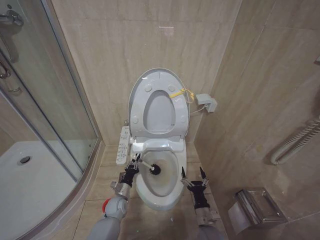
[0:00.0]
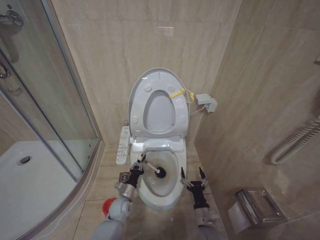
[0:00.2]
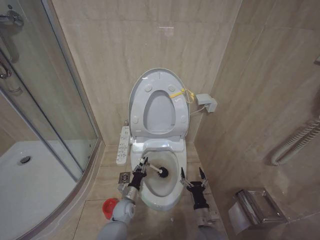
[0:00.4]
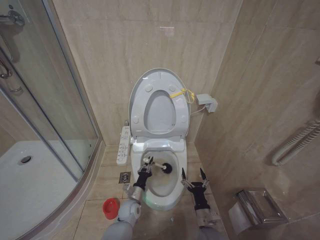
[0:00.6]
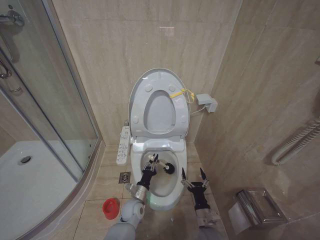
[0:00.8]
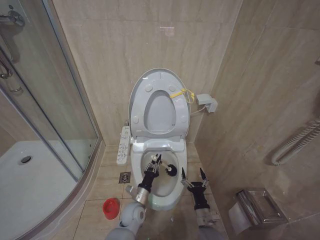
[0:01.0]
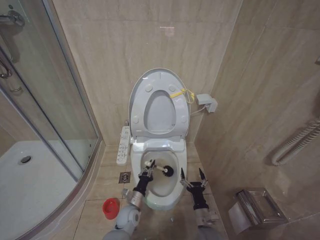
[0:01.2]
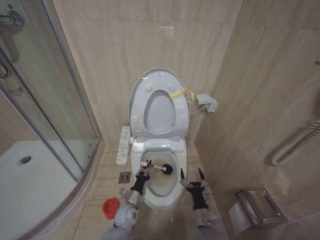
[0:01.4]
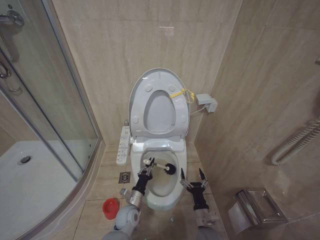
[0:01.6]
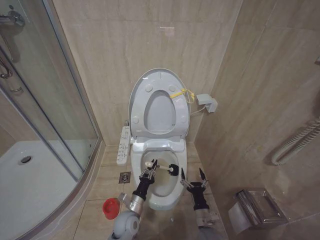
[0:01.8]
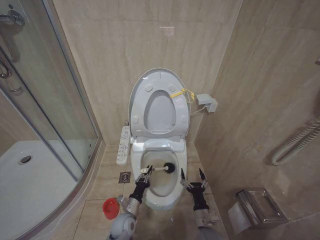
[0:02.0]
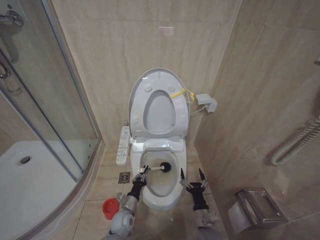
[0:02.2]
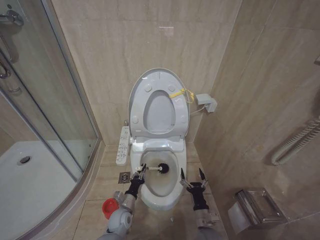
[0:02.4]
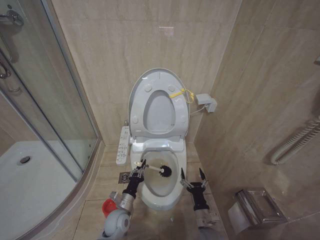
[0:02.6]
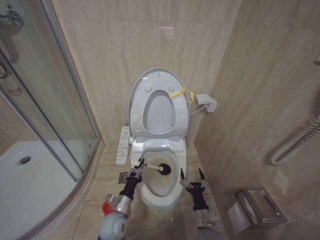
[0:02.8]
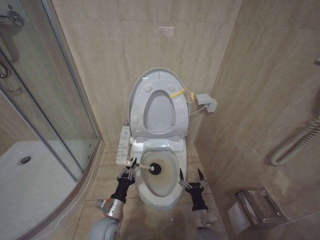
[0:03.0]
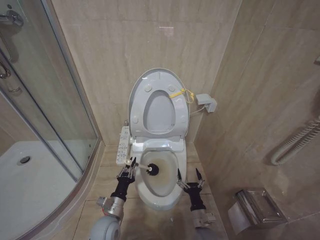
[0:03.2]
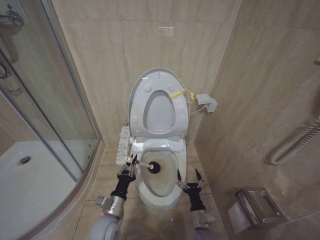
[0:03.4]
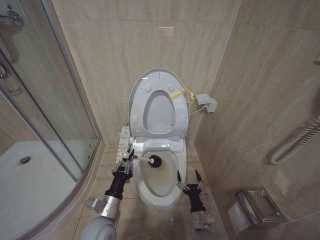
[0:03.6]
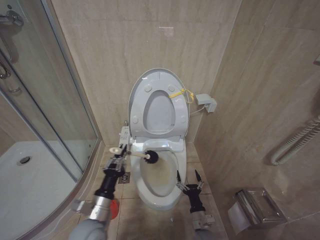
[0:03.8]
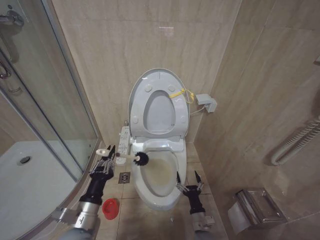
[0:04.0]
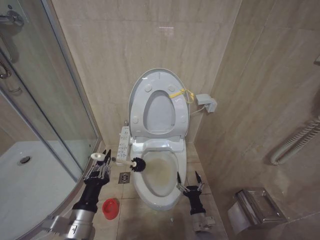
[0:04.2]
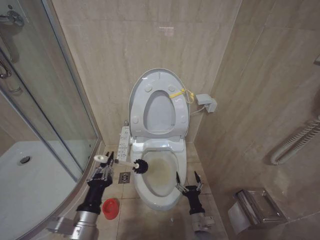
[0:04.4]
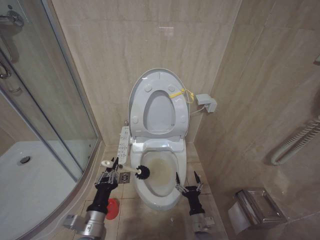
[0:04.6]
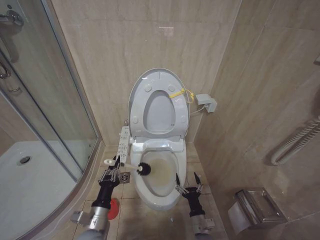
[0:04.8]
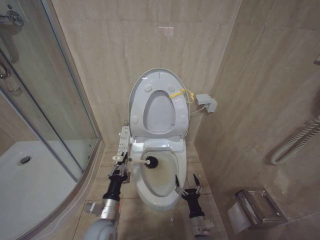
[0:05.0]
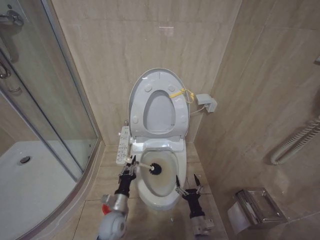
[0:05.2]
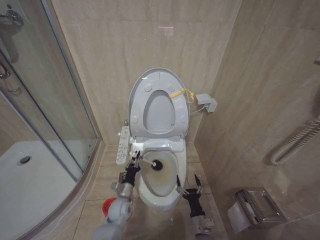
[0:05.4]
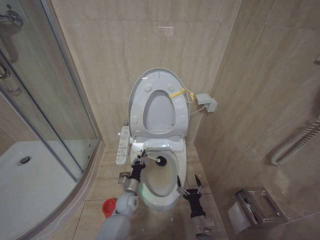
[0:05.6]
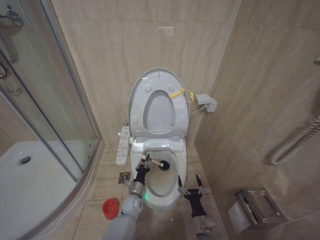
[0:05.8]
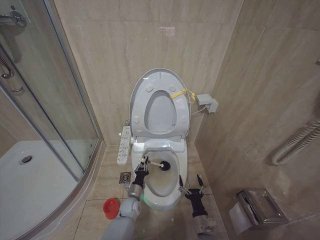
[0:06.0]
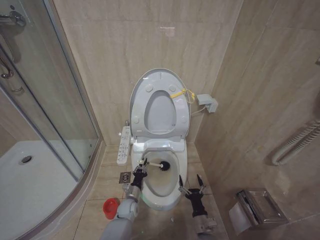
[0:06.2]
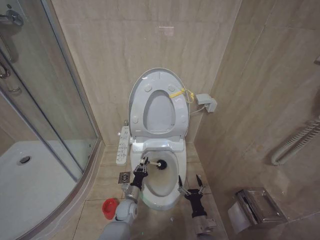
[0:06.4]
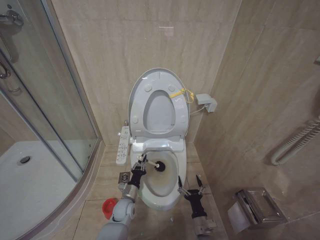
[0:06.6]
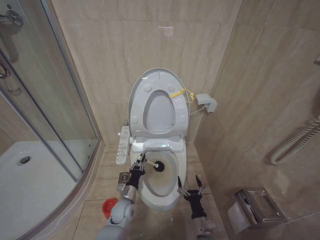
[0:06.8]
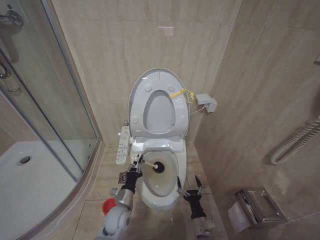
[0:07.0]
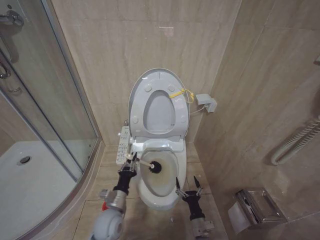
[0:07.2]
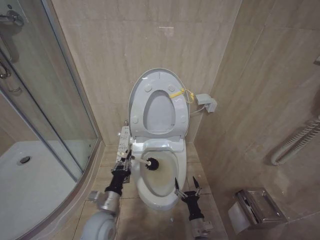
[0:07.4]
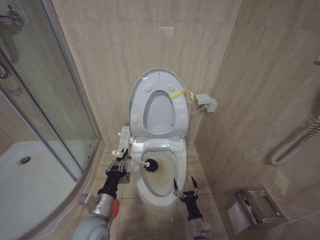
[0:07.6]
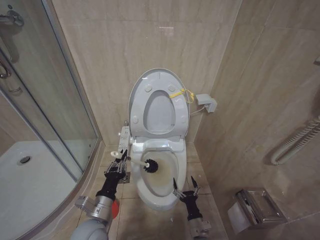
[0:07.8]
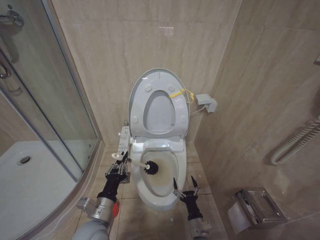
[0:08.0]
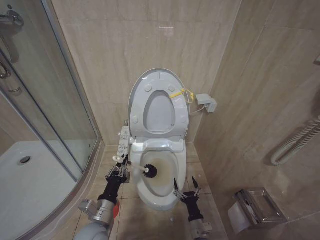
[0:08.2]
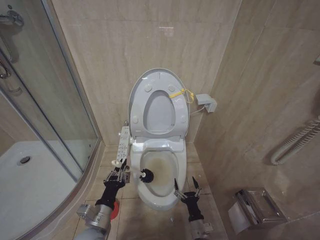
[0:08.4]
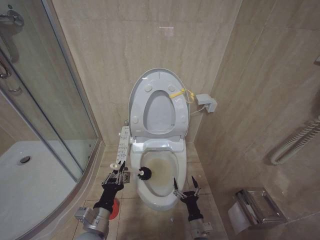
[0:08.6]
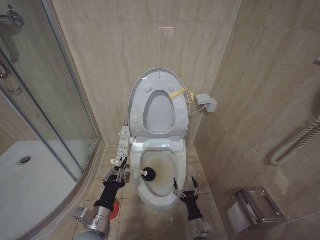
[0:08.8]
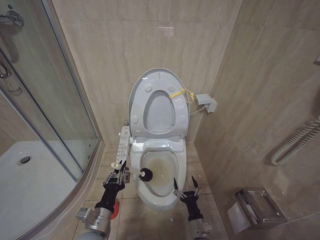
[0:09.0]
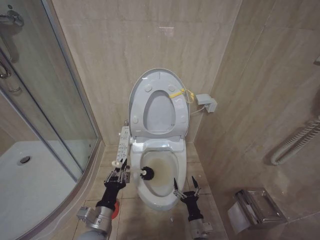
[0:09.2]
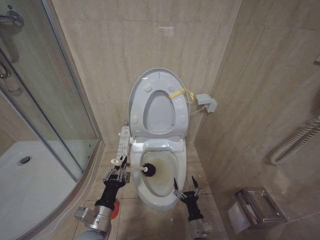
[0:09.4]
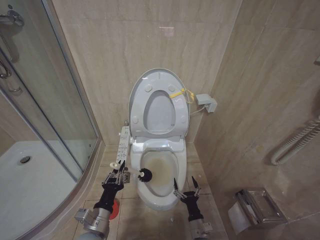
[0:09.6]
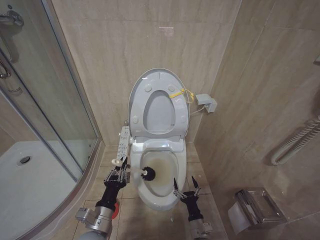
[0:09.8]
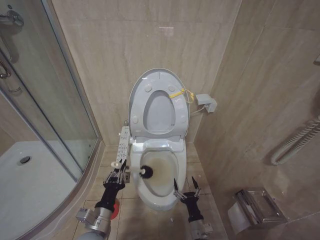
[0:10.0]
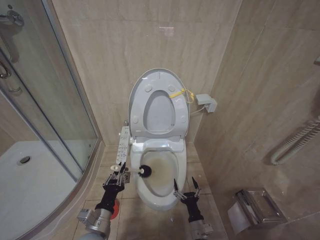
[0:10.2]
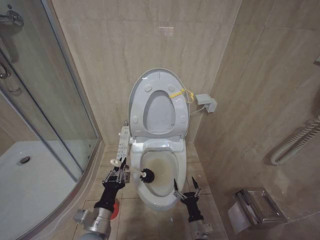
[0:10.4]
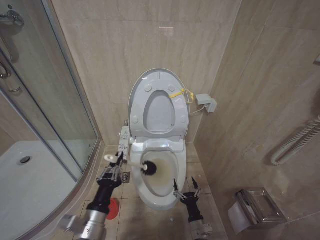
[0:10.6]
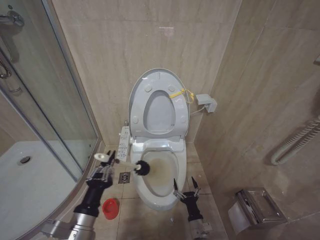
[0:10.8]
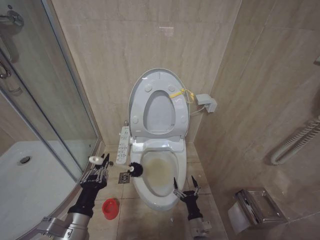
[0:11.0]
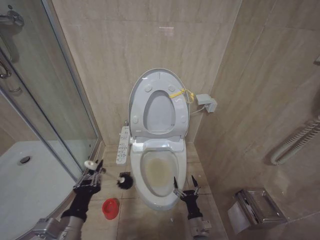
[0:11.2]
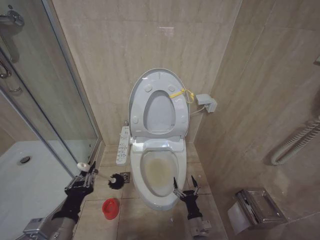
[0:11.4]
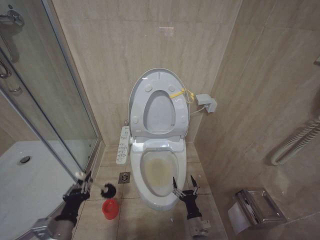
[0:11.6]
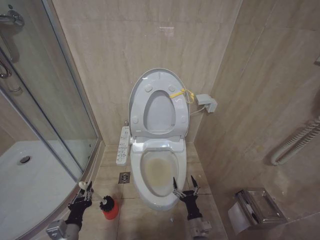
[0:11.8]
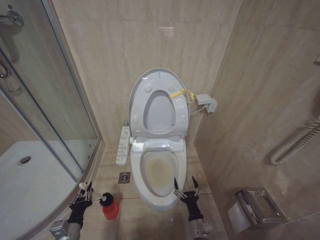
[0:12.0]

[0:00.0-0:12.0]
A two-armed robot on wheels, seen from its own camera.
Task of the whole recording: Open the toilet lid, clean the toilet bowl with a toilet brush, close the toilet lid, and flush.
0:00.0 to 0:01.6: The left gripper moves to the right, roughly 5 cm.
0:01.6 to 0:03.0: The left gripper travels upward, backward and to the left by approximately 10 cm.
0:03.0 to 0:04.4: The left gripper goes about 20 cm upward and backward.
0:04.4 to 0:06.0: The left gripper is displaced downward, forward and to the right by roughly 35 cm.
0:06.0 to 0:07.6: The left gripper shifts some 25 cm upward and backward.
0:07.6 to 0:09.0: The grippers make only small movements.
0:10.4 to 0:12.0: The left gripper goes approximately 15 cm to the left and downward.

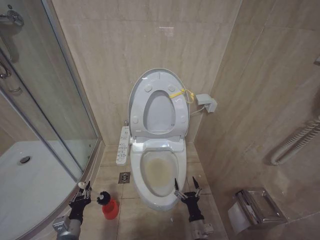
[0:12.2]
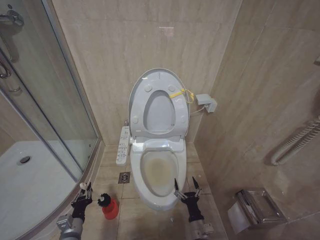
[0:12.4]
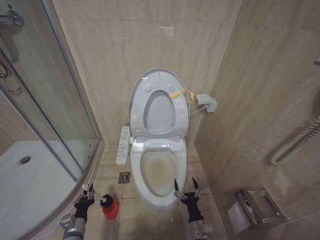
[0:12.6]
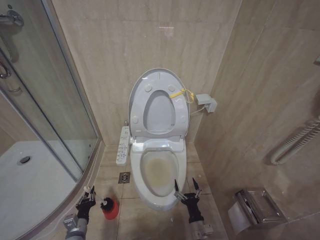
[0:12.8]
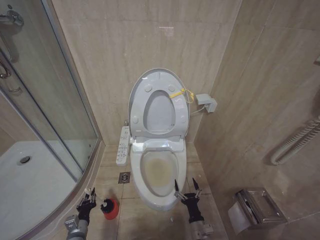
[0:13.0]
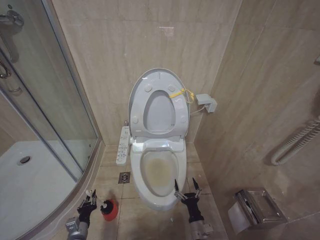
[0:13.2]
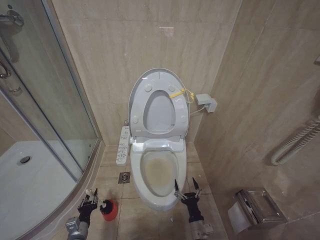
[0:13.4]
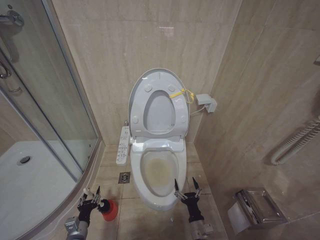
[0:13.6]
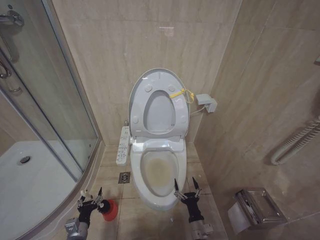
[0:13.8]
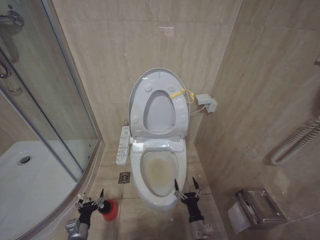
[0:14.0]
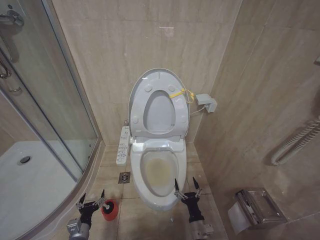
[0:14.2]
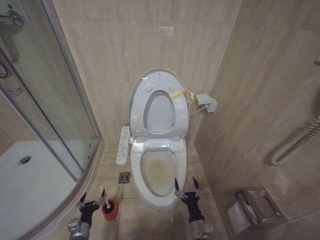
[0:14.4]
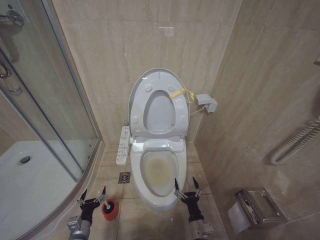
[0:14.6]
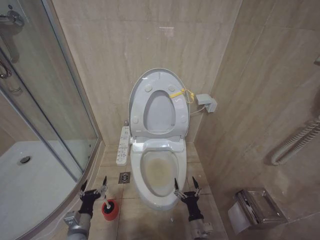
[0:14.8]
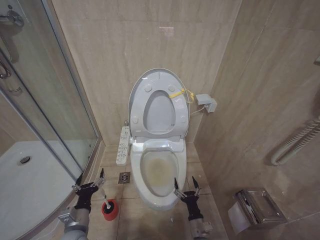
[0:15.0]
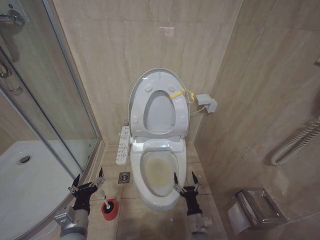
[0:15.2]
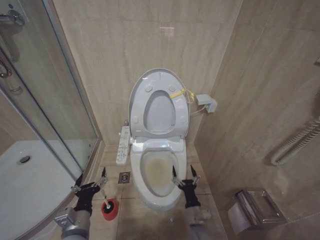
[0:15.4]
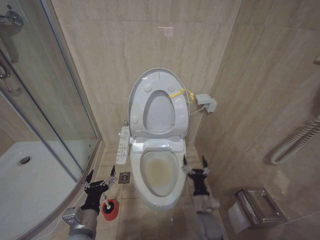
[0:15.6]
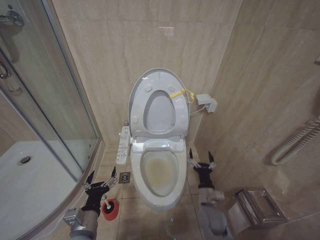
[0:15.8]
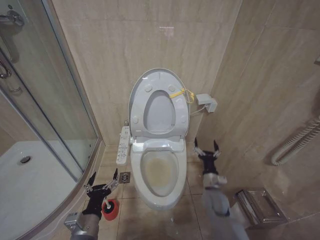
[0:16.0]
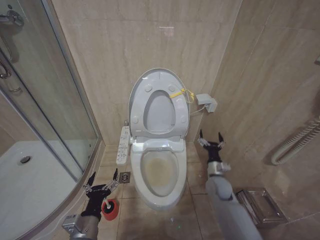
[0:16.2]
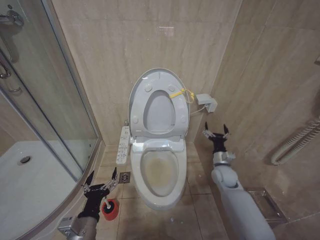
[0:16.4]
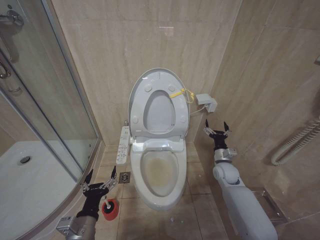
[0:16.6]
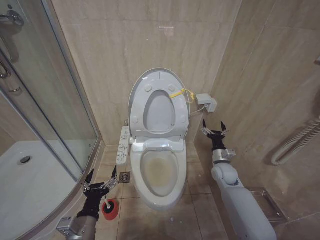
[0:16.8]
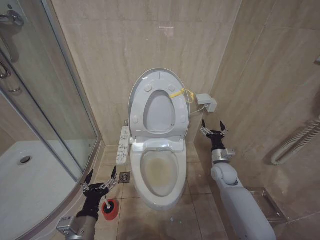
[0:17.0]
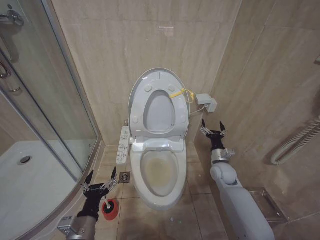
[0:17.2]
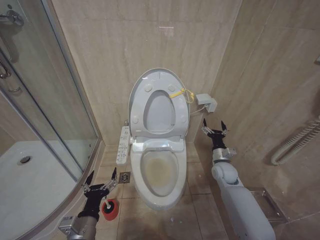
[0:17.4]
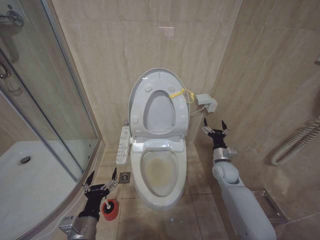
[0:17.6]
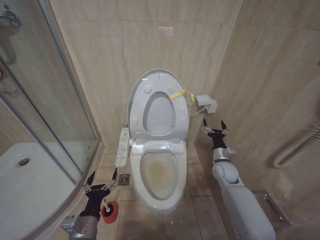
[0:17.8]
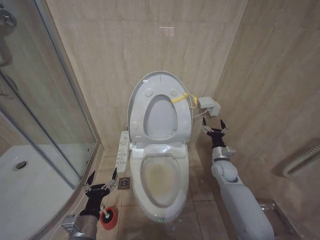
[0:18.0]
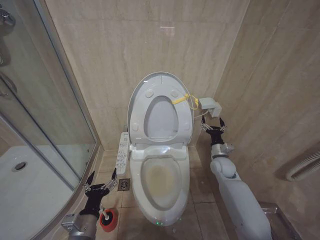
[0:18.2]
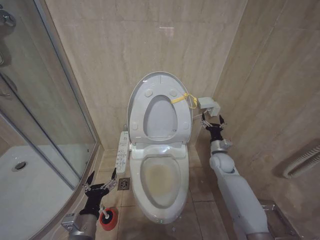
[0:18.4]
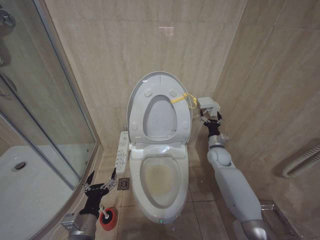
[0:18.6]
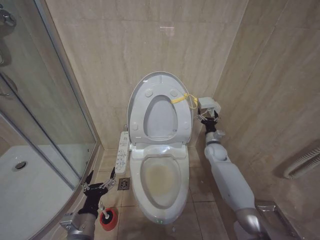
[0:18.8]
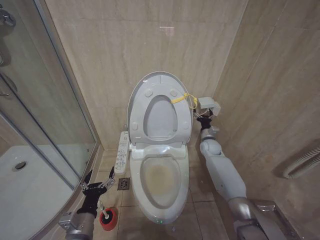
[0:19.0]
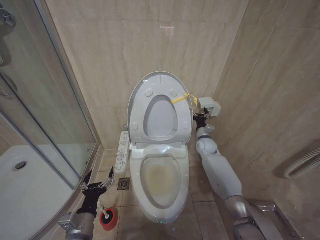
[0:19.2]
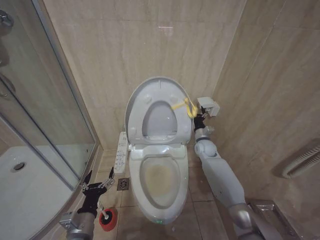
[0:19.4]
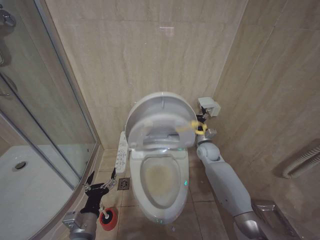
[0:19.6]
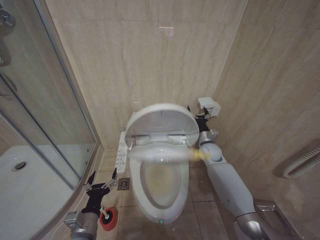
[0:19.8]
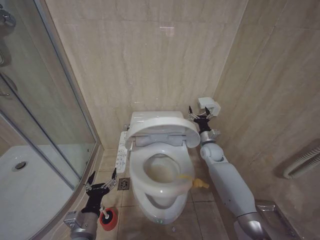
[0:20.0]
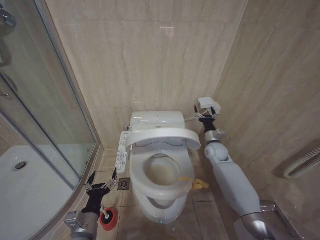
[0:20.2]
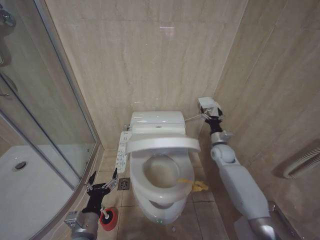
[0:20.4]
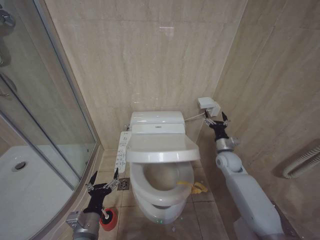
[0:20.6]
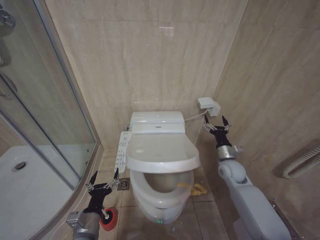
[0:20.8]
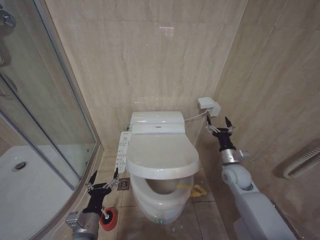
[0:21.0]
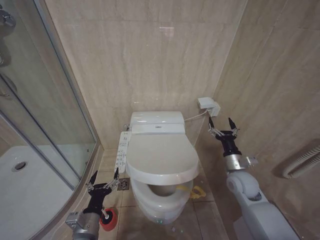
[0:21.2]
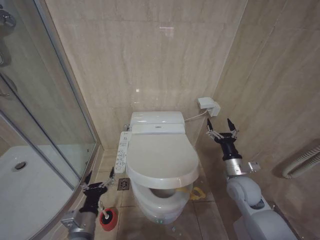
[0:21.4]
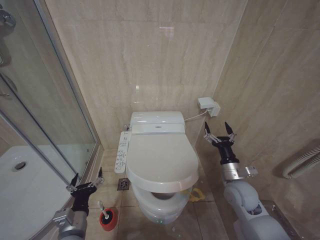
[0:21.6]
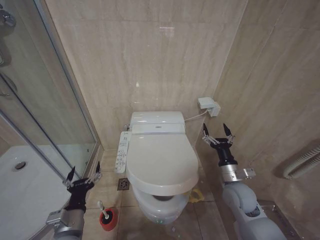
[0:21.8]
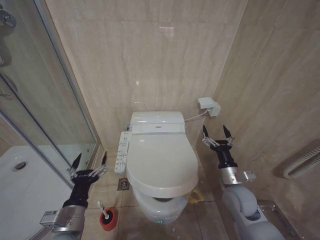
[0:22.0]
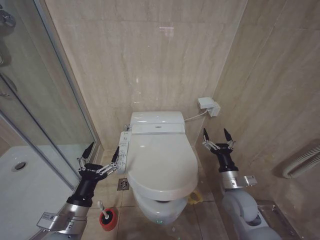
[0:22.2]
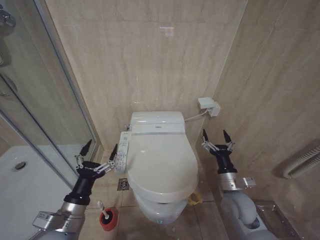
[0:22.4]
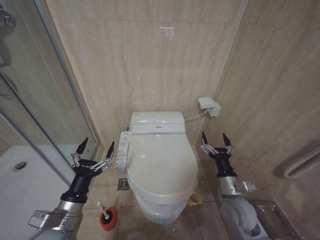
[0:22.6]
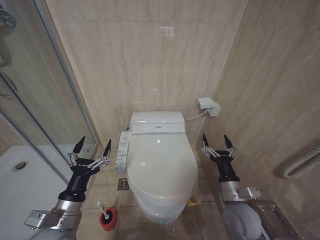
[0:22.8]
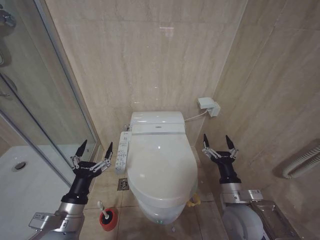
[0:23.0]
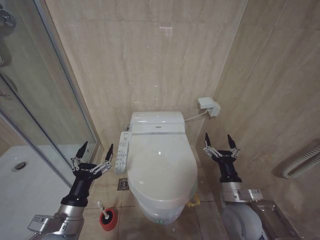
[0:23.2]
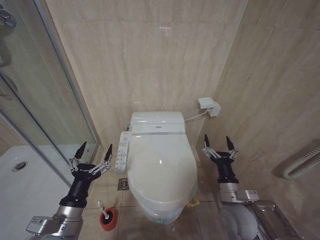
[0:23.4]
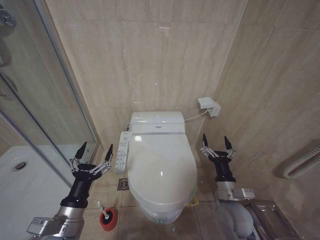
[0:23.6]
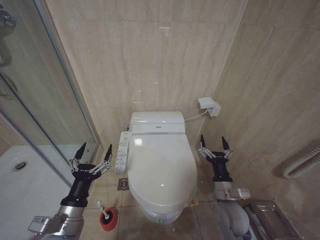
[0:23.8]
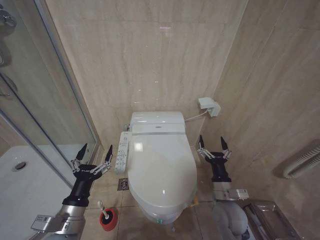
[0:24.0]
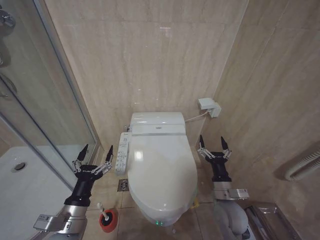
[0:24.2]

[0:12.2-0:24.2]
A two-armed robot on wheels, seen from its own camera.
Task of the whole recording: Open the toilet lid, clean the toilet bowl with a toilet brush, close the toilet lid, and flush.
0:12.2 to 0:13.8: The left gripper heads downward, covering approximately 5 cm, and opens.
0:13.8 to 0:15.2: The left gripper is displaced upward by approximately 15 cm.
0:15.2 to 0:16.6: The left gripper shifts by approximately 5 cm; the right gripper is displaced forward, upward and to the right by roughly 30 cm.
0:16.6 to 0:18.2: The grippers make only small movements.
0:18.2 to 0:19.8: The right gripper shifts approximately 5 cm forward.
0:19.8 to 0:21.2: The right gripper is displaced backward by approximately 15 cm.
0:21.2 to 0:22.6: The left gripper is displaced upward by some 10 cm. Meanwhile the right gripper is displaced backward and to the left by about 10 cm.
0:22.6 to 0:24.2: The grippers make only small movements.
